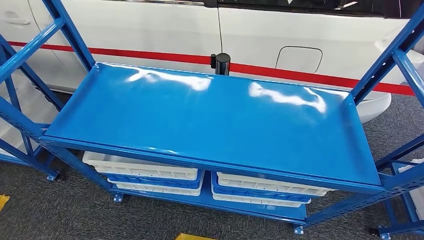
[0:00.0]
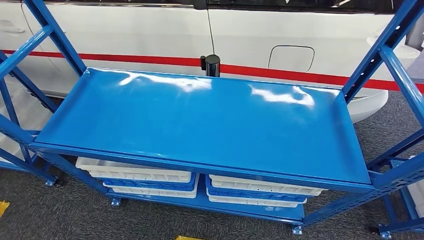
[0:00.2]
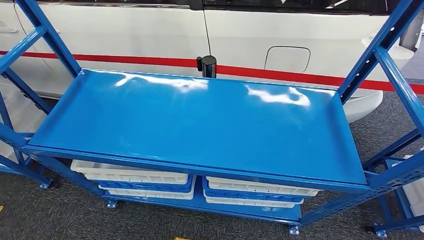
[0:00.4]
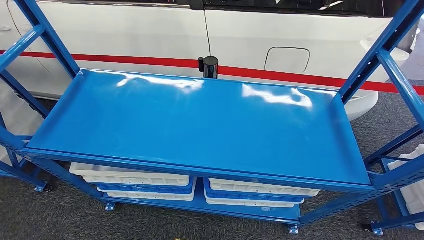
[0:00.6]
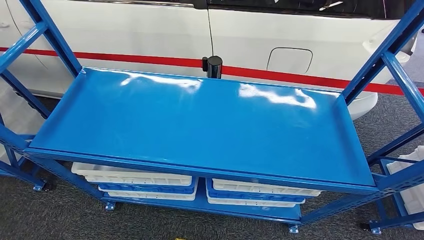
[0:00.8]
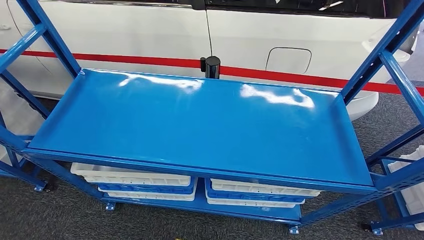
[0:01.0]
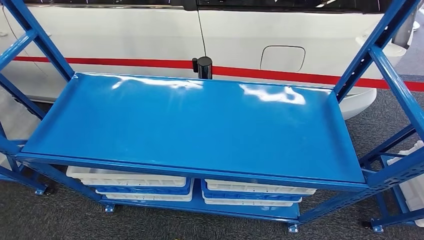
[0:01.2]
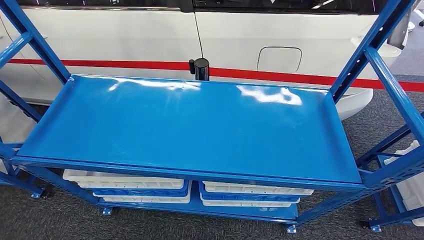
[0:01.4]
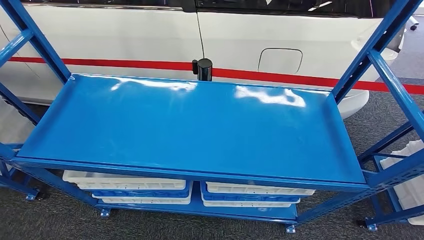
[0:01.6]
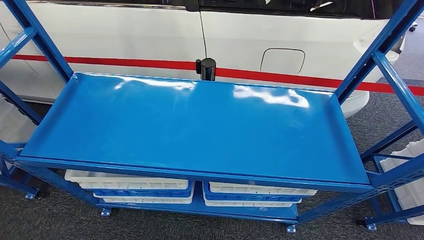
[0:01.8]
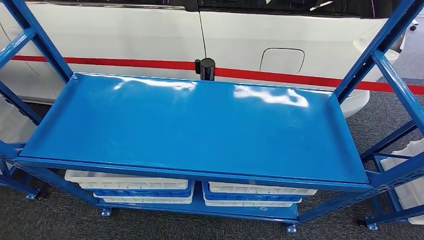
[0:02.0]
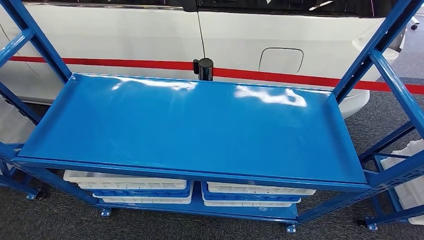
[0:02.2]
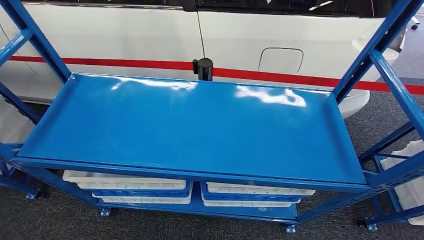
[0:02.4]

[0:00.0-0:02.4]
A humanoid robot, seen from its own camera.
Step, 0:00.0 to 0:02.2: Move to the initial position of the shelf.
